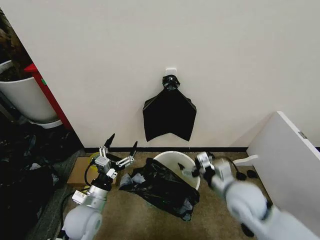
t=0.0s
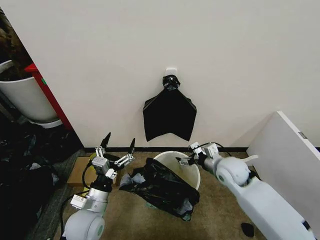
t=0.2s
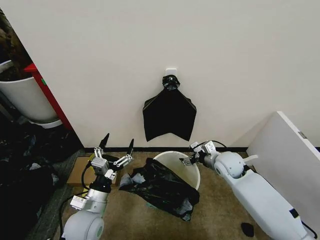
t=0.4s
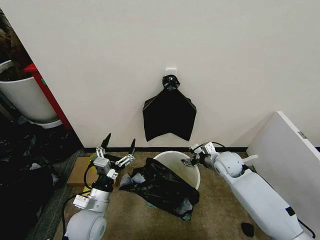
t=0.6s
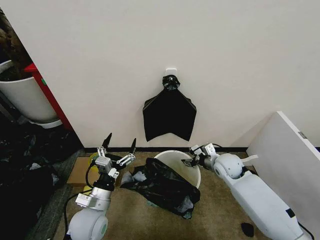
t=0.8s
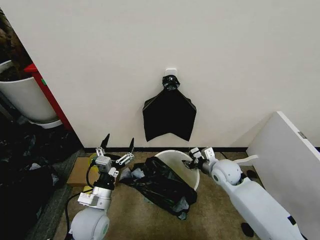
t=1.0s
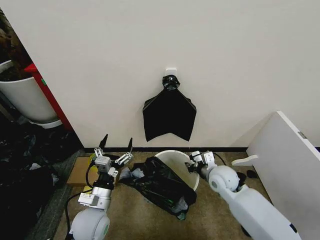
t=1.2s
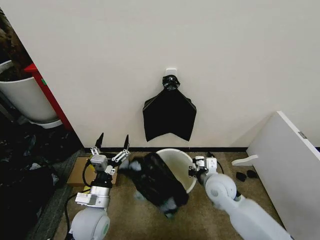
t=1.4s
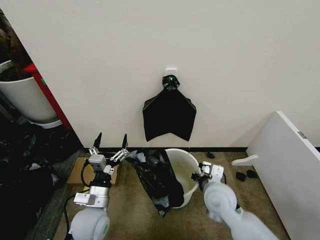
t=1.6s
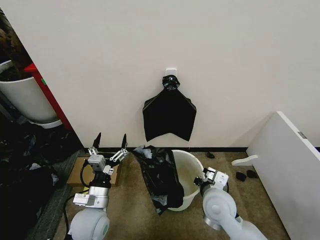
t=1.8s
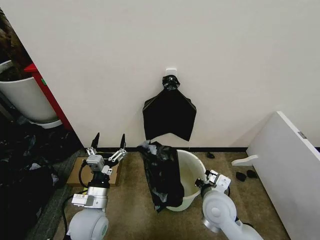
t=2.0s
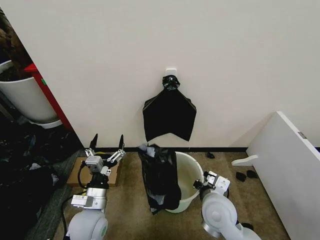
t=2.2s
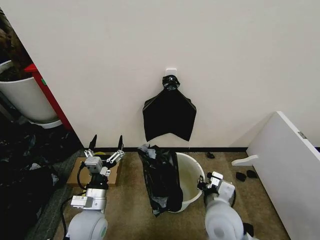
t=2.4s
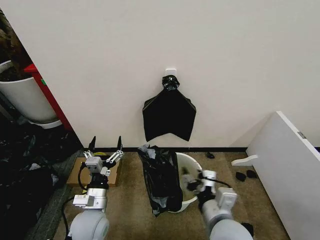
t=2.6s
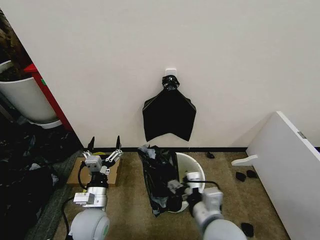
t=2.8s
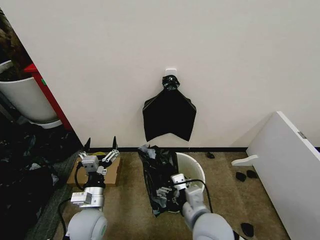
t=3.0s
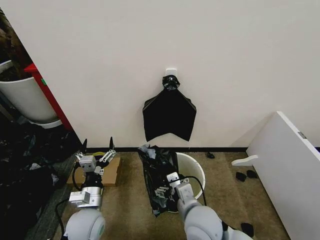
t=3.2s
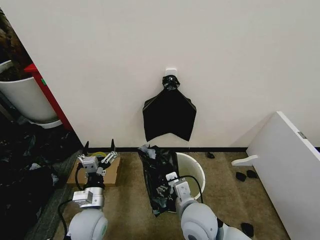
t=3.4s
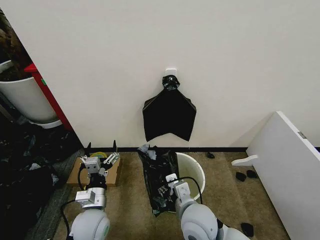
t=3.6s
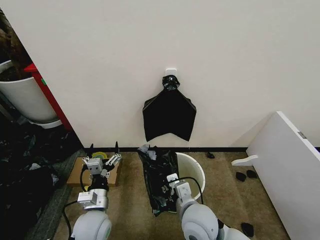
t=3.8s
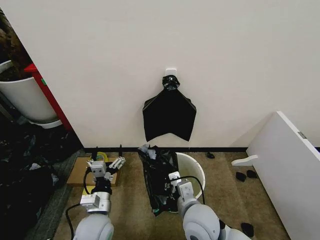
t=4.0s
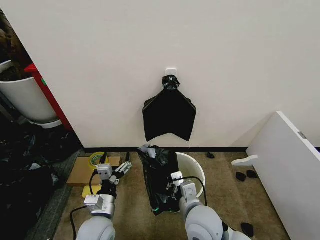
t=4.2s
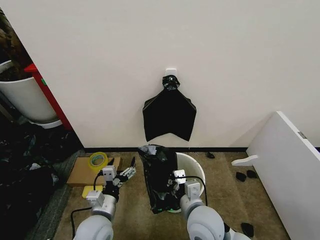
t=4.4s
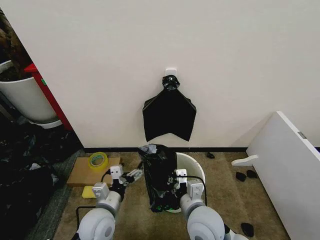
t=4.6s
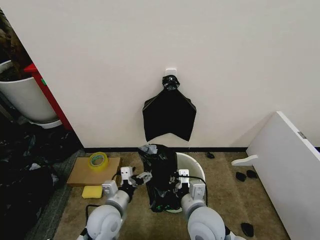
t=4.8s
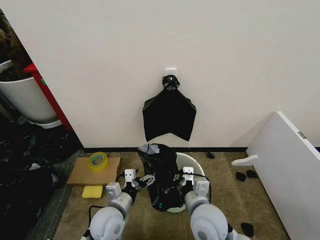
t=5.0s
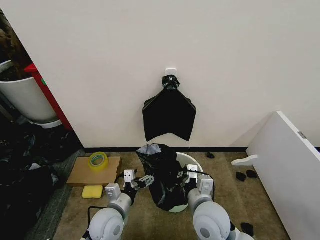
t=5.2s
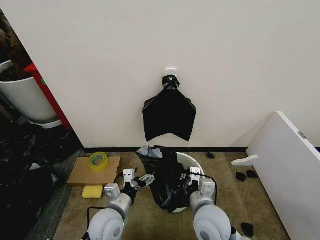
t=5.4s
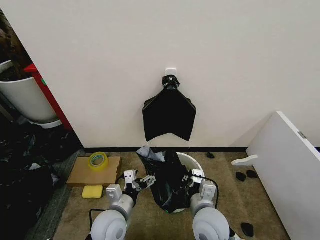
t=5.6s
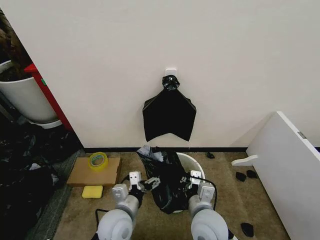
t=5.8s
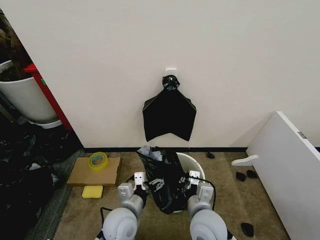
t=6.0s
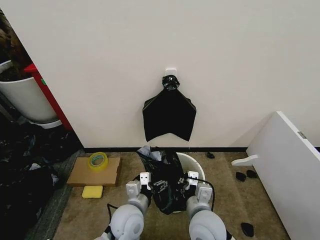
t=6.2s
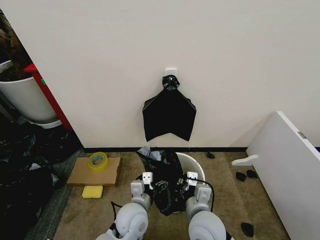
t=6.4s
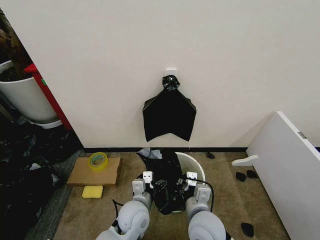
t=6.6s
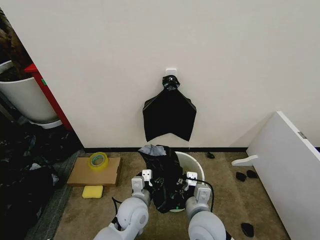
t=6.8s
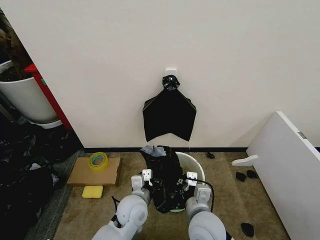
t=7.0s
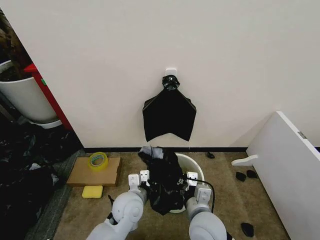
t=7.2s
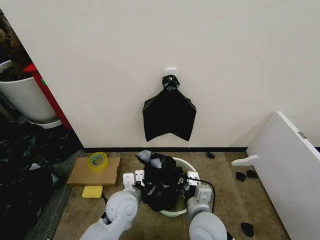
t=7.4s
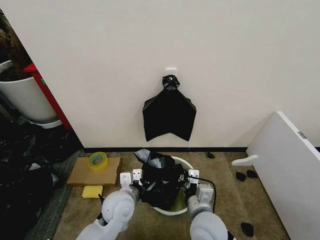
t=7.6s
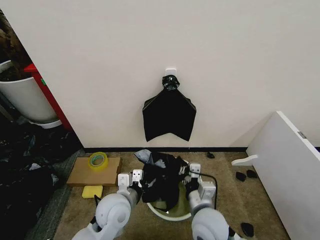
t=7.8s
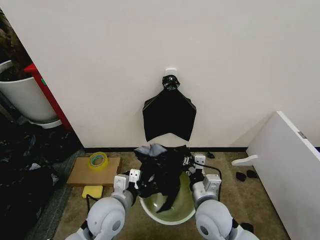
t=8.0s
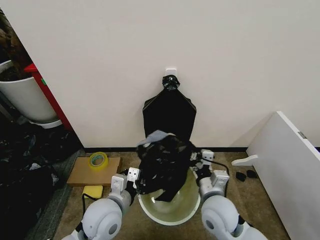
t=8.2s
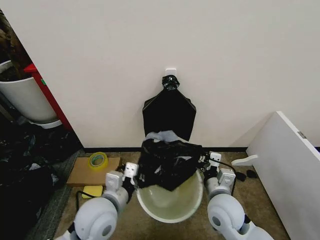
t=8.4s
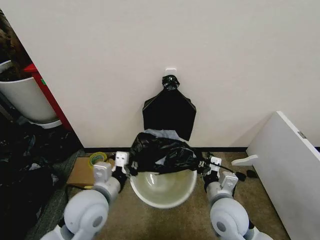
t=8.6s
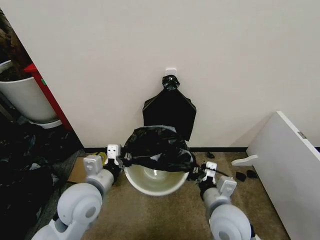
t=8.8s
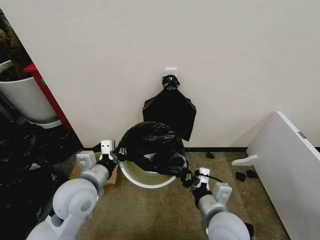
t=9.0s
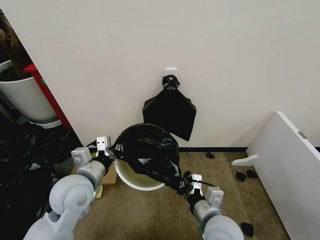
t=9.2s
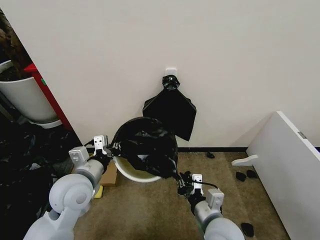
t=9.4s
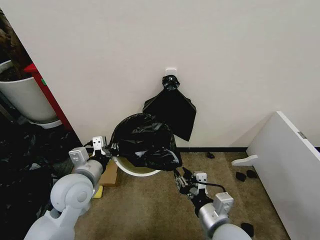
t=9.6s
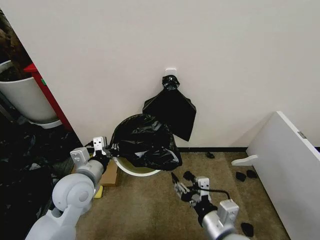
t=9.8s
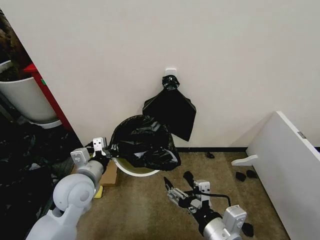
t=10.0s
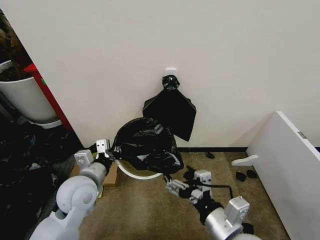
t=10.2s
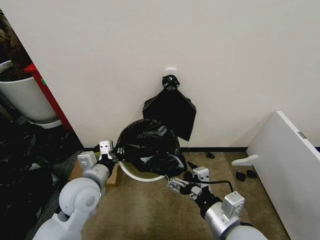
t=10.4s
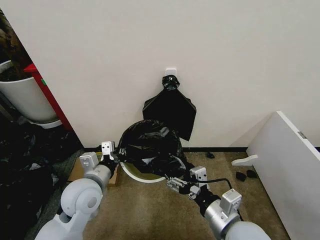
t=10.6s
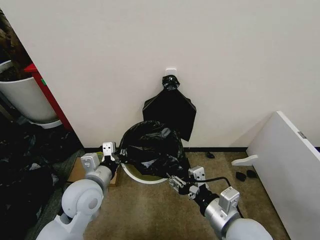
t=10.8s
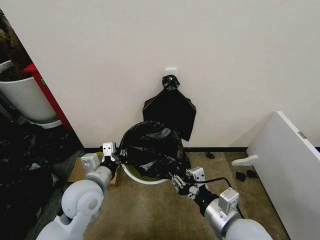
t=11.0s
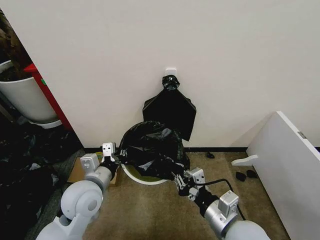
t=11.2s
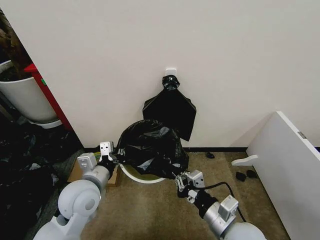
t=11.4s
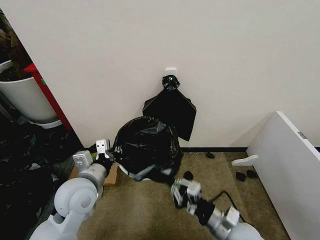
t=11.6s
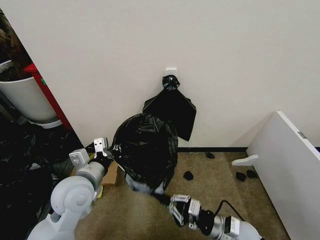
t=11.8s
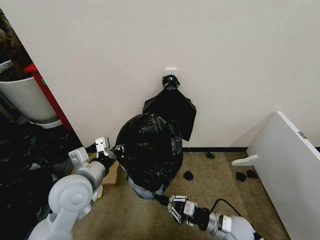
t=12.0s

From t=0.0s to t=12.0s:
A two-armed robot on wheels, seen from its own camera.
Task of the whole recording: Place the garbage bag over the trash bin.
From t=0.0s to t=1.6s: The right gripper goes roughly 5 cm to the left, reaches approximately 15 cm forward, then returns, and closes.
From t=1.6s to t=3.0s: The right gripper heads backward and to the left, covering approximately 10 cm, and opens its fingers.
From t=3.0s to t=4.4s: The right gripper closes its fingers.
From t=4.4s to t=6.0s: The left gripper is displaced to the right by approximately 5 cm.
From t=6.0s to t=7.6s: The left gripper ends up roughly 5 cm from where it was, and closes up.
From t=7.6s to t=9.0s: The left gripper moves upward and to the left, about 15 cm; the right gripper ends up about 5 cm from where it was.
From t=9.0s to t=10.4s: The right gripper moves roughly 5 cm, and opens up.
From t=10.4s to t=12.0s: The right gripper heads downward, covering about 20 cm, and closes.

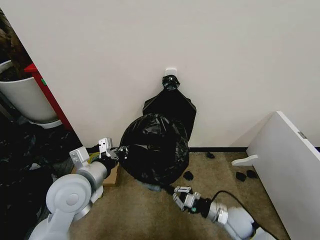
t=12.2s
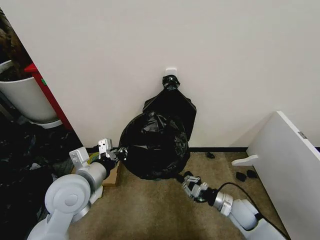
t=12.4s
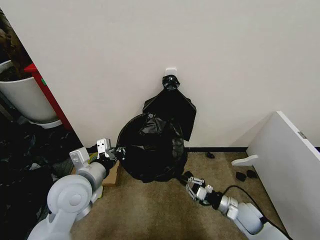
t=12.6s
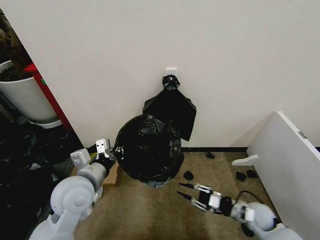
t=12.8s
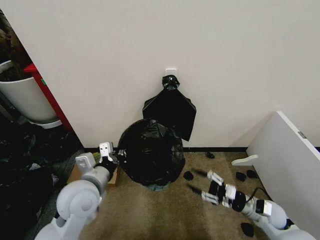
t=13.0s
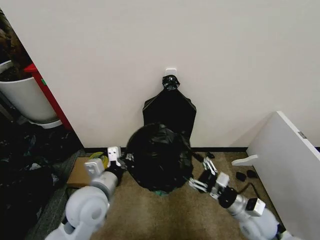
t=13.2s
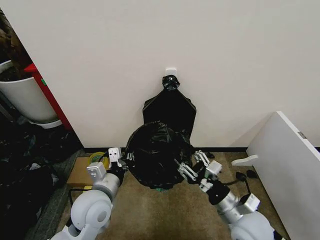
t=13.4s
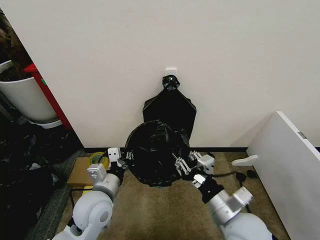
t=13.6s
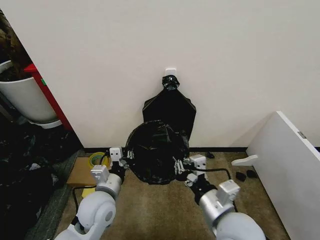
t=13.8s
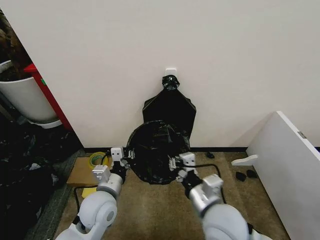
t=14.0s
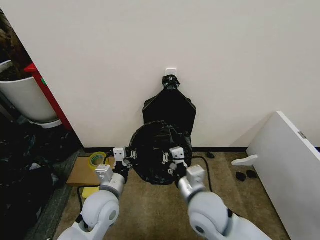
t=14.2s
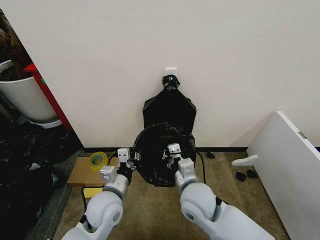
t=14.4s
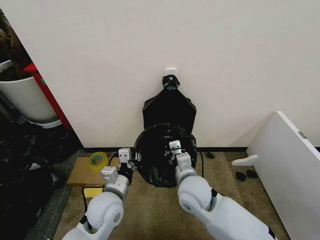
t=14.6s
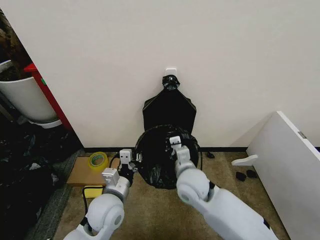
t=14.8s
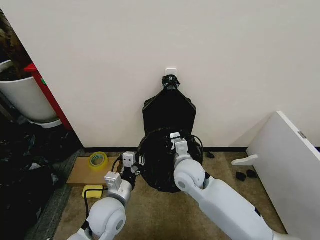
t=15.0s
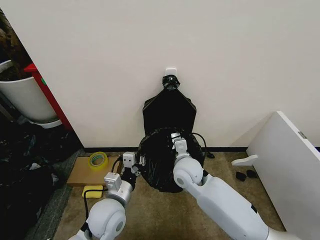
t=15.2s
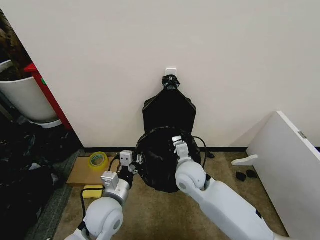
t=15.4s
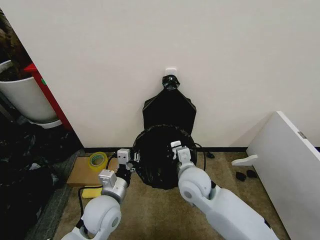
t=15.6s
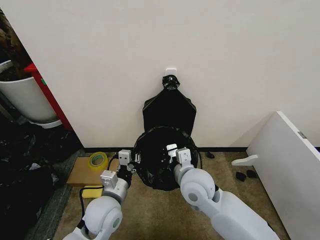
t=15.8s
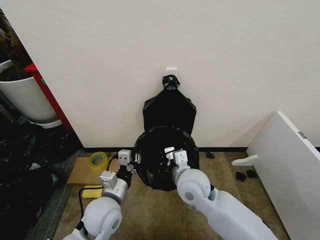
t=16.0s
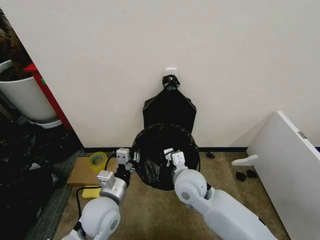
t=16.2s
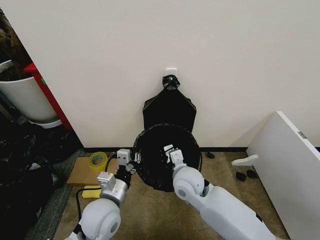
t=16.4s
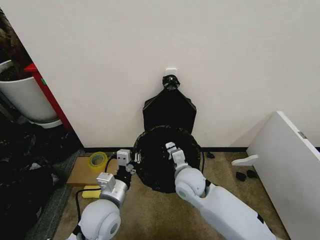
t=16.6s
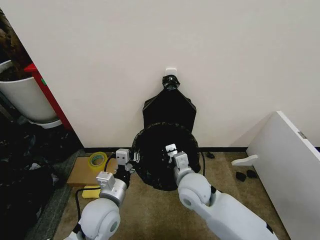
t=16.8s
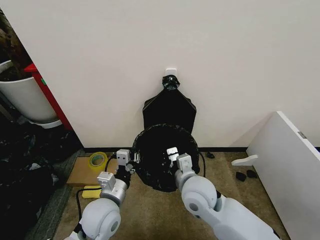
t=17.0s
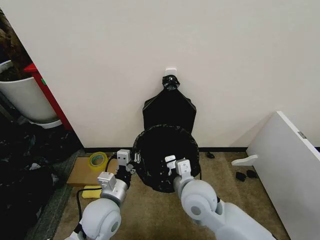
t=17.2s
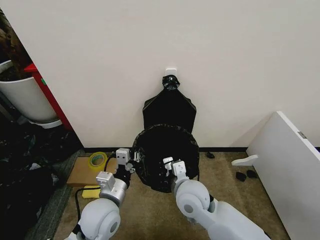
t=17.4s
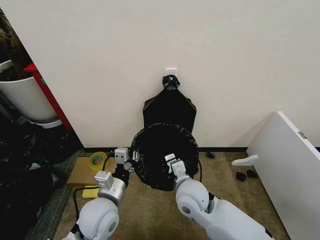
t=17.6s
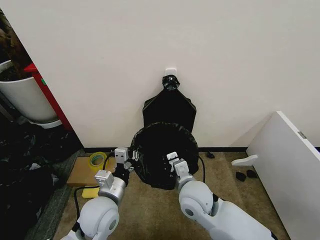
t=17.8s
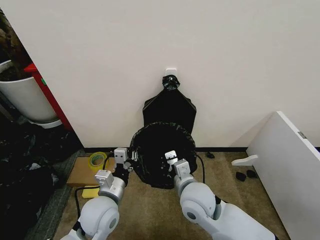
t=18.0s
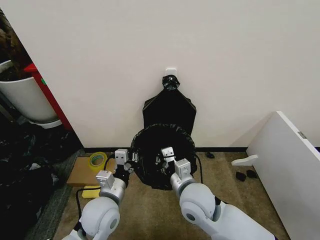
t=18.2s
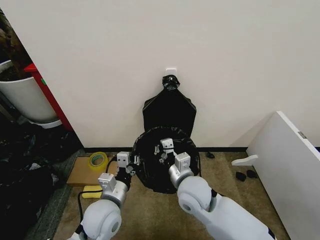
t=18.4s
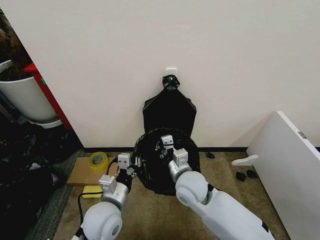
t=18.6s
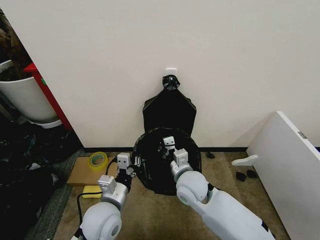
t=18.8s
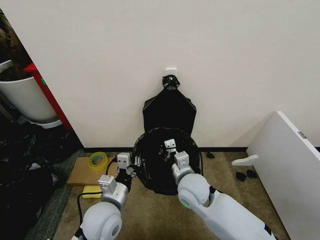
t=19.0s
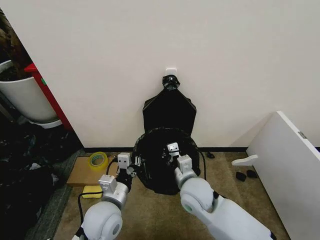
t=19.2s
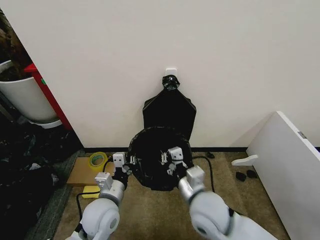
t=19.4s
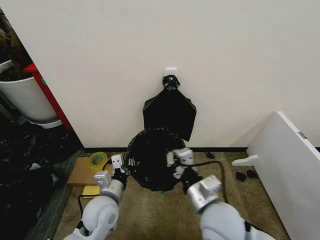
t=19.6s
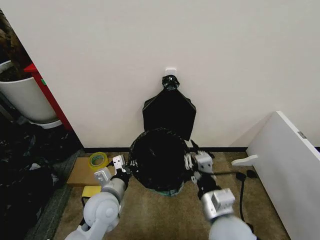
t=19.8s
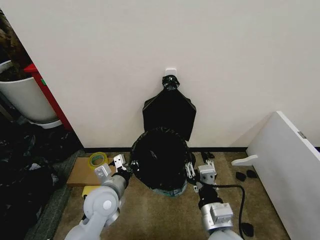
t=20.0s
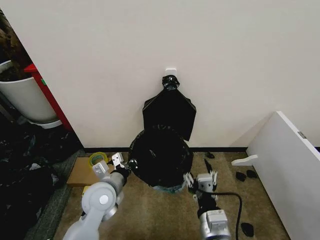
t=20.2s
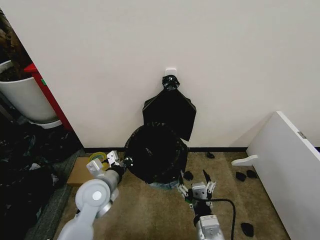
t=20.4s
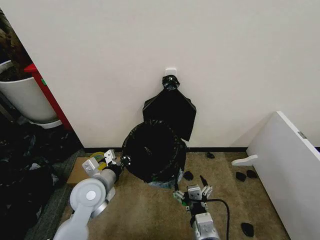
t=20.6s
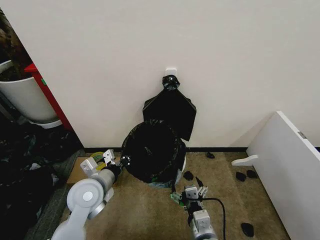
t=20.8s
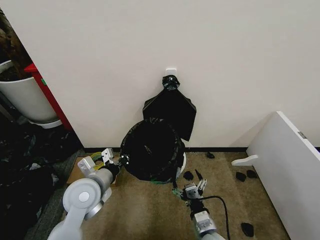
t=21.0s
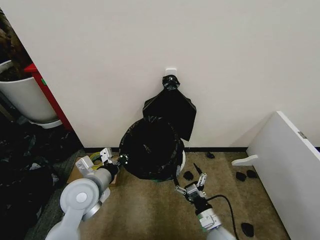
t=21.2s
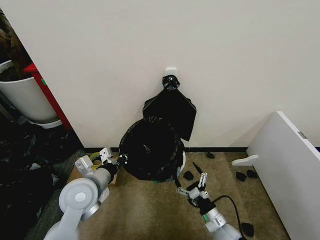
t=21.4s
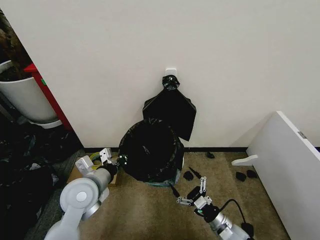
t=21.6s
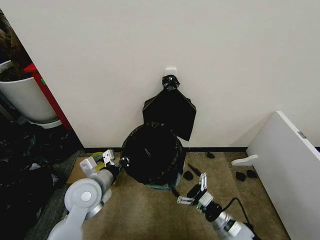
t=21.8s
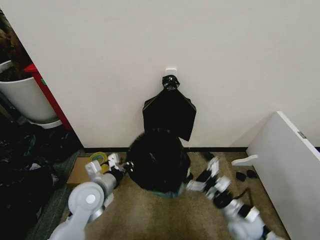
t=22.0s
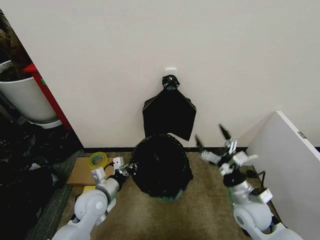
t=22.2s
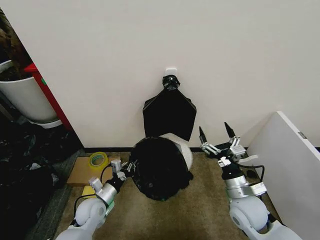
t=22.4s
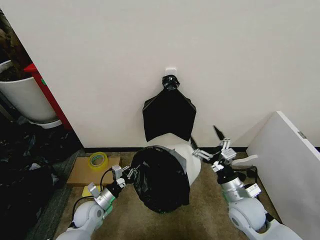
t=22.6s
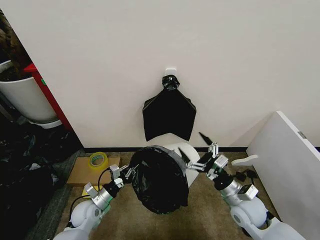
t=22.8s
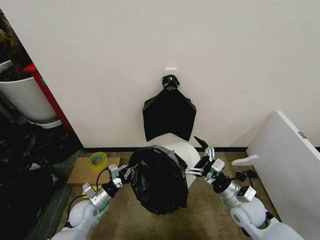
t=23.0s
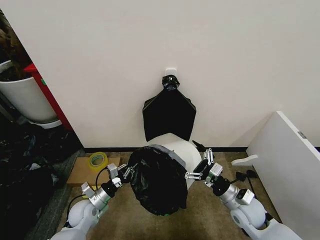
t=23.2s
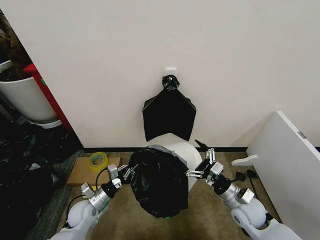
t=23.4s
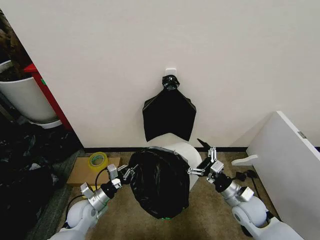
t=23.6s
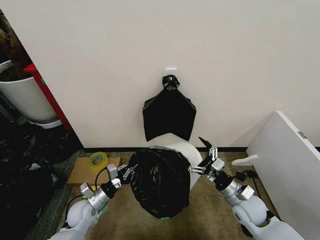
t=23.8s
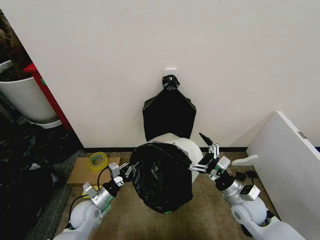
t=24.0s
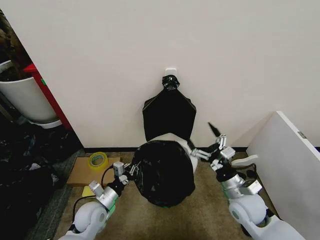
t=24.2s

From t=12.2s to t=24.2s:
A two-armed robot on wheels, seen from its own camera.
Task of the whole recording: Place the garbage bag over the trash bin.
From t=12.2s to t=13.8s: The left gripper moves downward, about 10 cm, while the right gripper moves upward and to the left, roughly 25 cm, and opens, then closes once more.
From t=13.8s to t=15.2s: The right gripper heads forward and to the left, covering roughly 20 cm.
From t=16.6s to t=18.2s: The right gripper moves backward, approximately 5 cm.
From t=18.2s to t=19.8s: The right gripper goes roughly 10 cm backward and to the right.
From t=19.8s to t=21.2s: The right gripper shifts approximately 20 cm downward, and opens. Meanwhile the left gripper is displaced upward by roughly 5 cm.
From t=21.2s to t=22.6s: The right gripper goes about 15 cm upward, forward and to the right. The left gripper shifts about 20 cm downward.
From t=22.6s to t=24.2s: The left gripper ends up about 5 cm from where it was.
